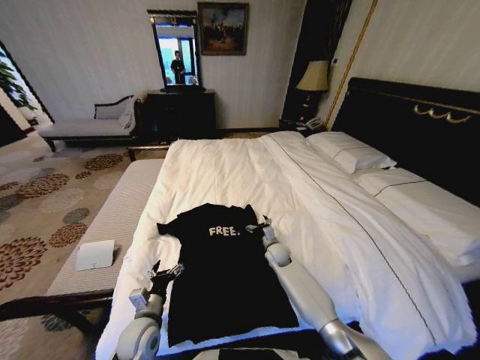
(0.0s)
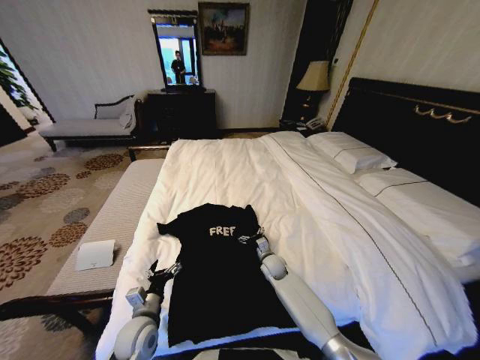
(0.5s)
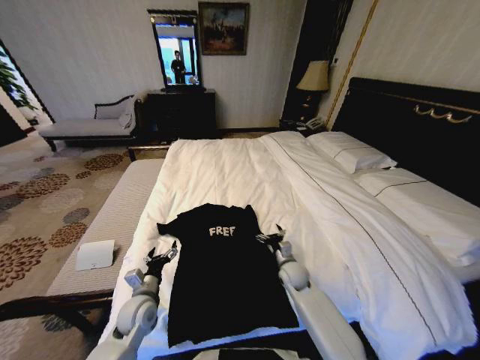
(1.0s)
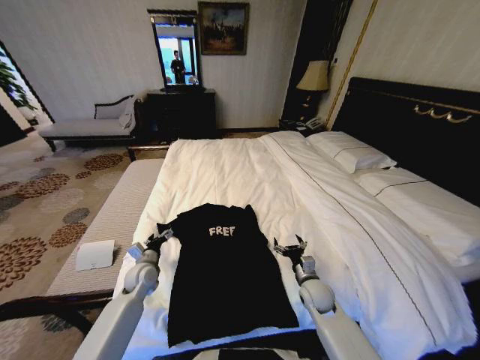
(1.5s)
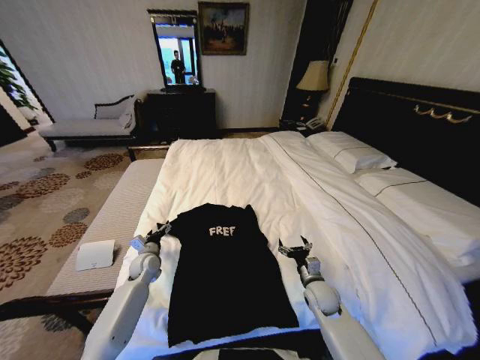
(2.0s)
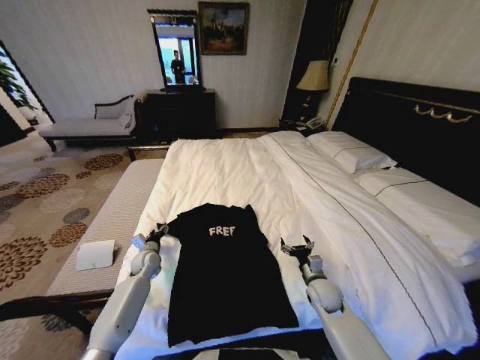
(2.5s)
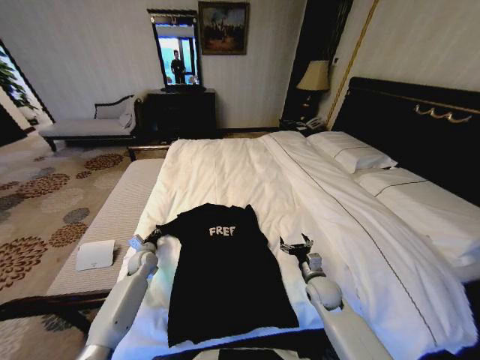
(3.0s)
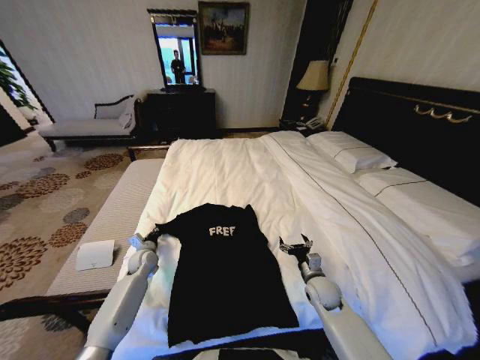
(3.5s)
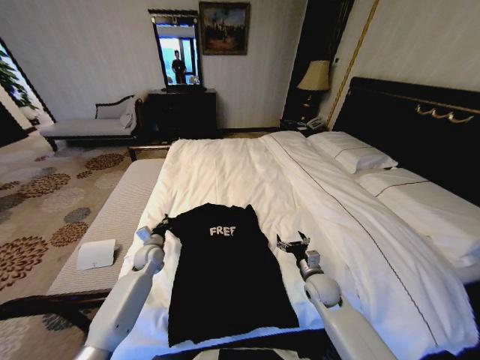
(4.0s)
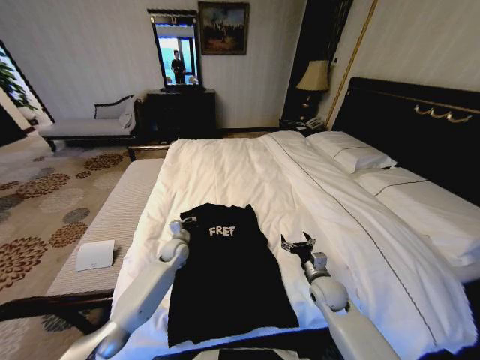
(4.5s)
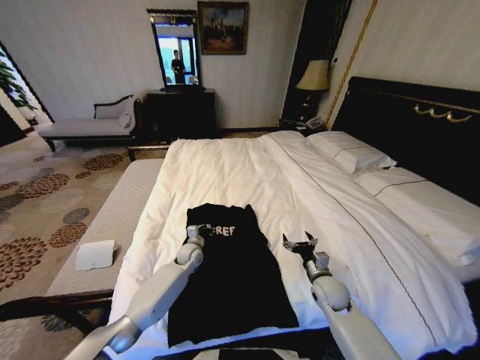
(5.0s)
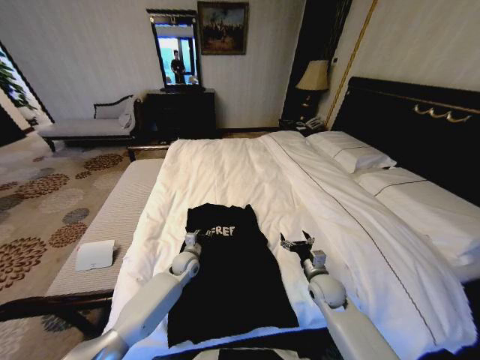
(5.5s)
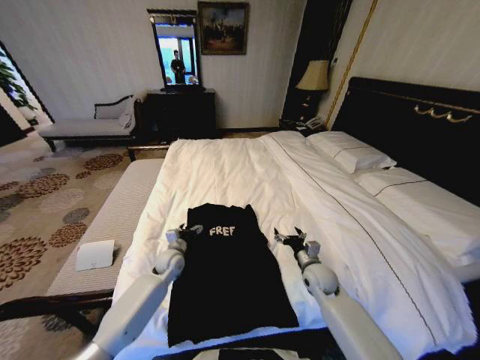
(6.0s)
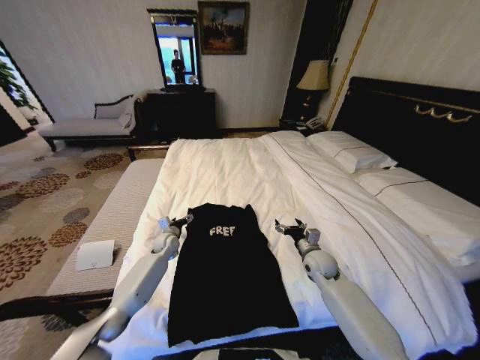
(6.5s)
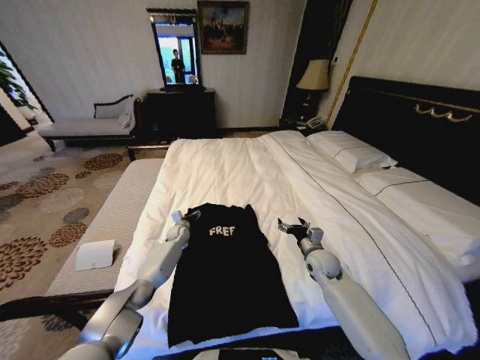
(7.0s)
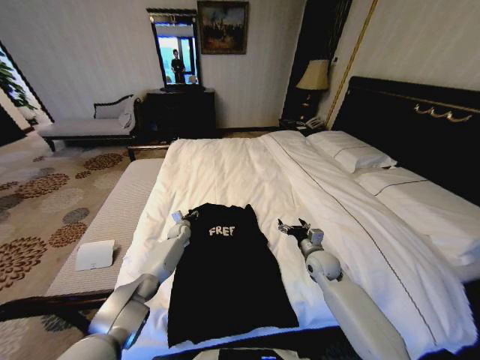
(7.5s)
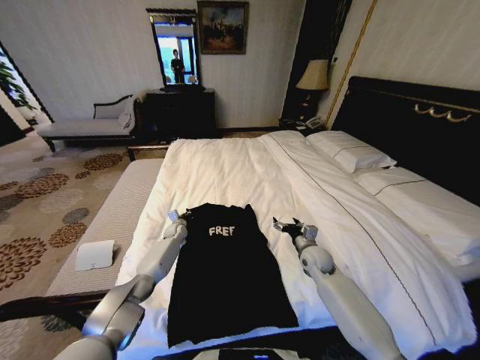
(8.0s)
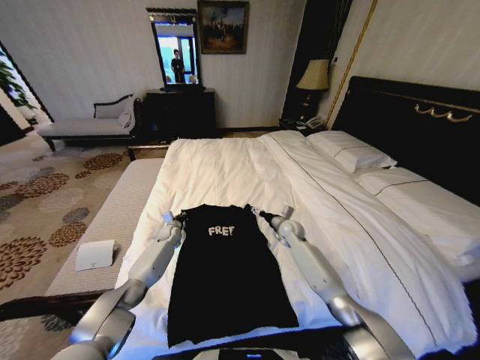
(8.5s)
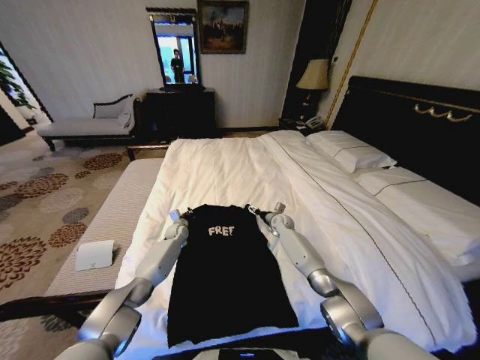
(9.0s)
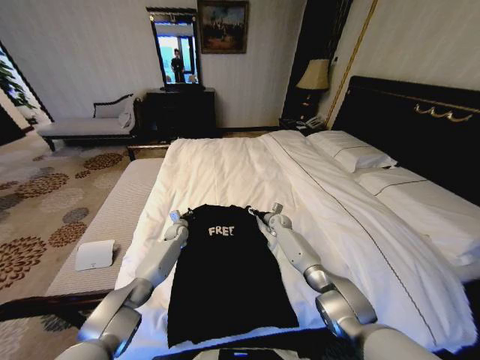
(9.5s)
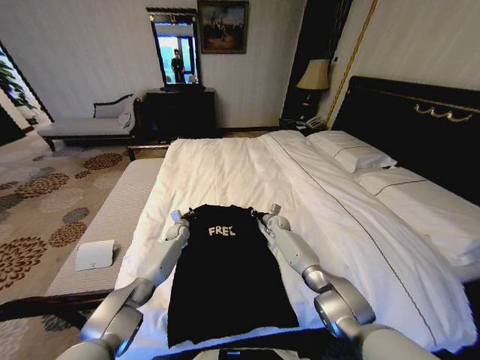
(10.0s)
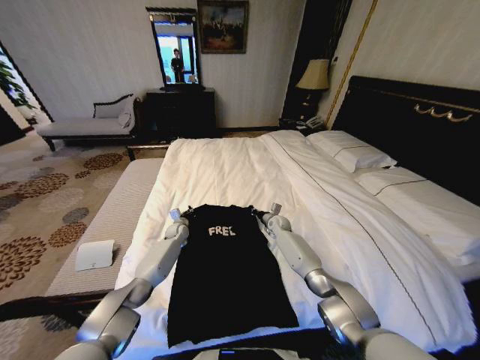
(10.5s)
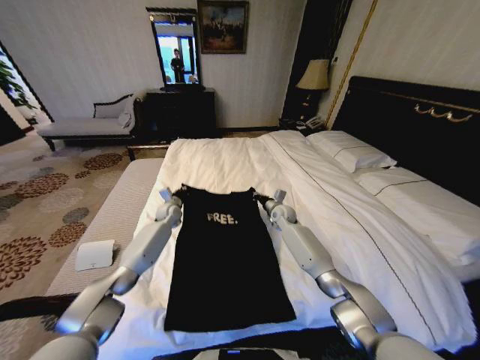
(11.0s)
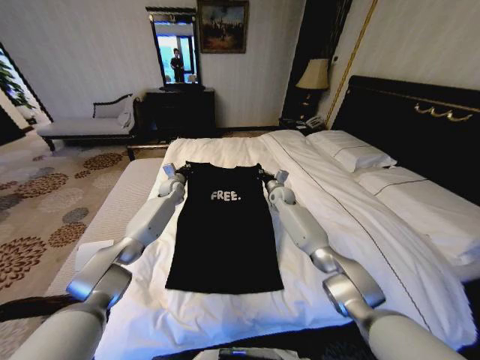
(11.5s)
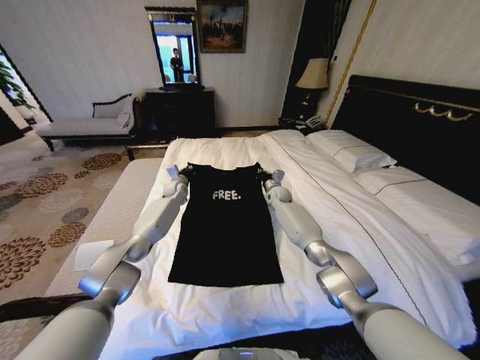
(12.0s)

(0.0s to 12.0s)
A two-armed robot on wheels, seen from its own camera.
Task of the whole recording: Fold the clothes on the bed.
0.0s - 2.0s: The right gripper moves backward and to the right, about 20 cm. Meanwhile the left gripper travels forward by roughly 20 cm.
2.0s - 4.0s: The left gripper closes its fingers.
4.0s - 6.0s: The left gripper shifts approximately 10 cm to the right, and opens up.
6.0s - 8.0s: The left gripper shifts approximately 15 cm forward, and closes. The right gripper shifts approximately 5 cm forward.
8.0s - 10.0s: The right gripper moves forward, approximately 20 cm, and closes its fingers.
10.0s - 12.0s: Both grippers travel together upward and forward, about 15 cm.

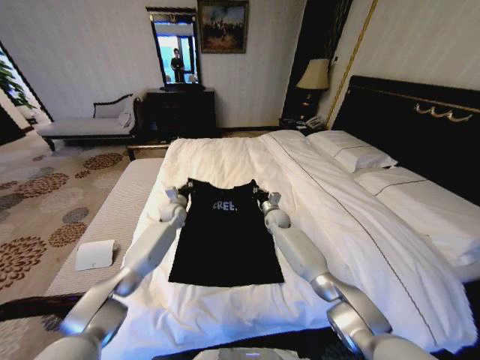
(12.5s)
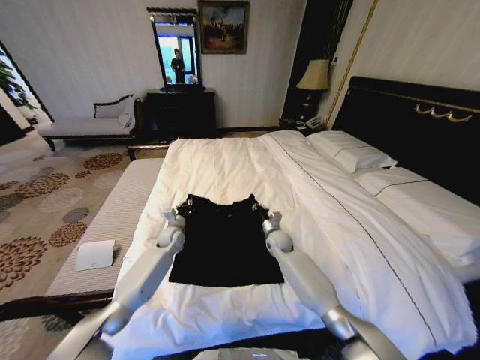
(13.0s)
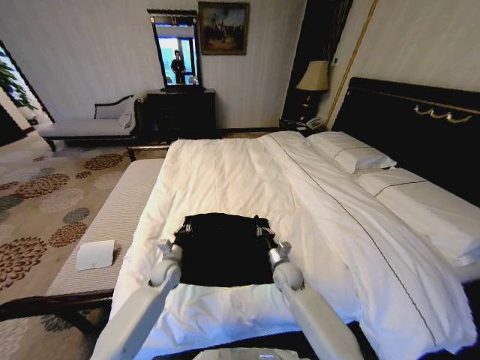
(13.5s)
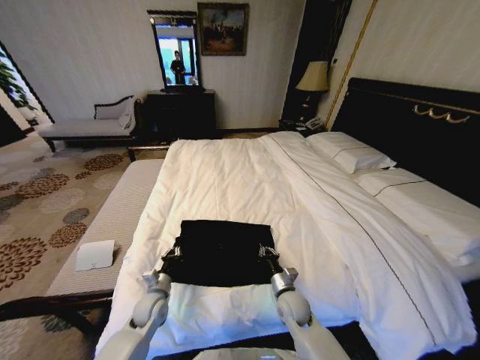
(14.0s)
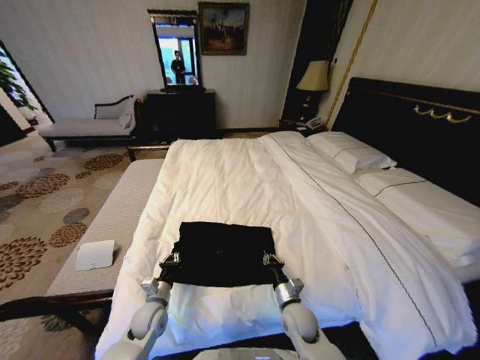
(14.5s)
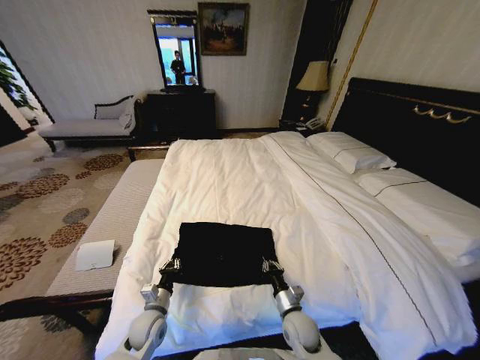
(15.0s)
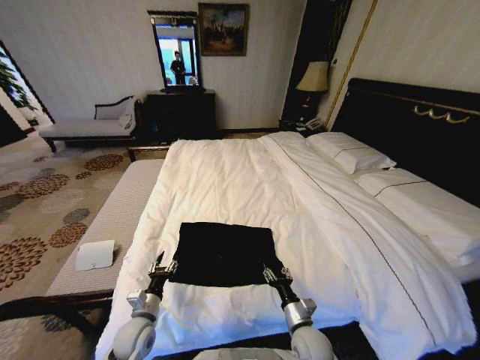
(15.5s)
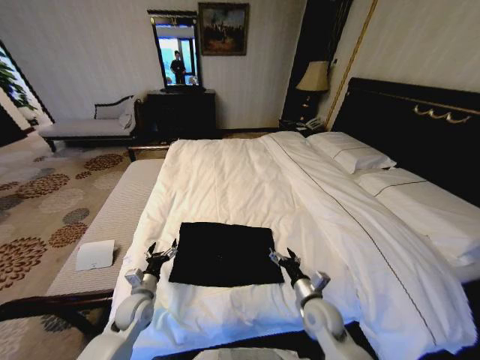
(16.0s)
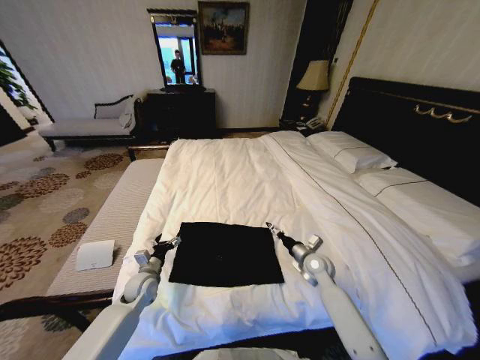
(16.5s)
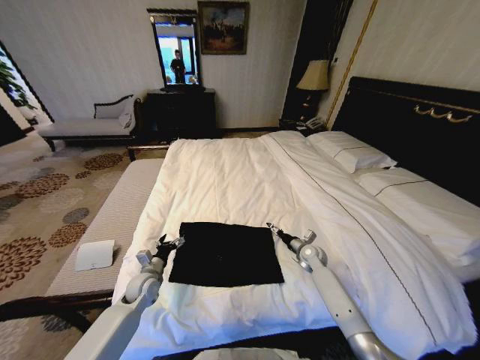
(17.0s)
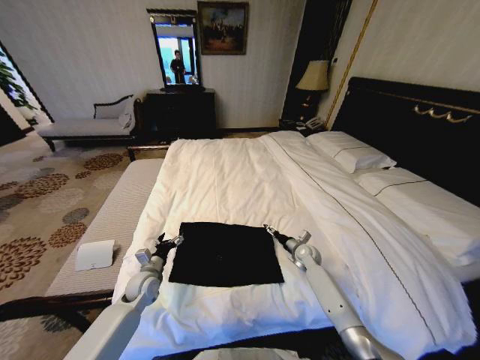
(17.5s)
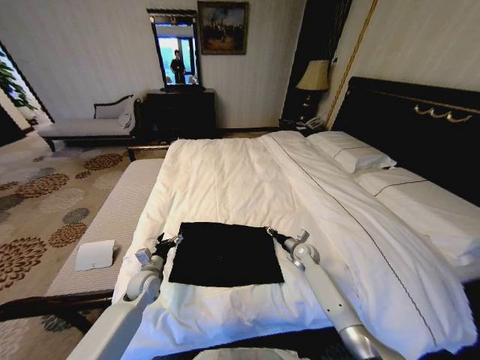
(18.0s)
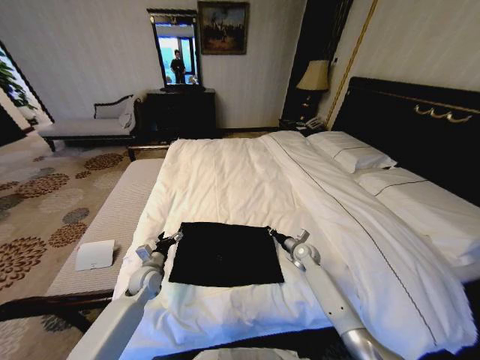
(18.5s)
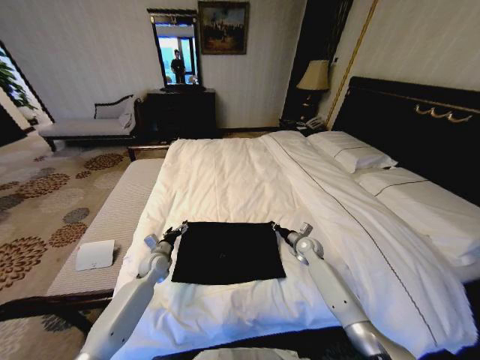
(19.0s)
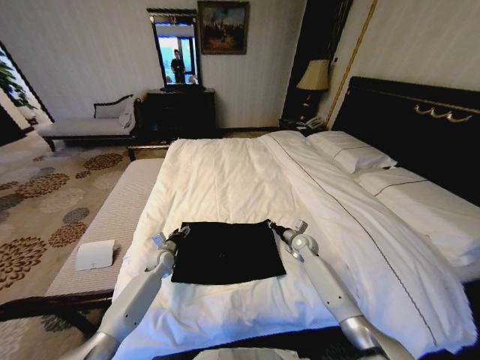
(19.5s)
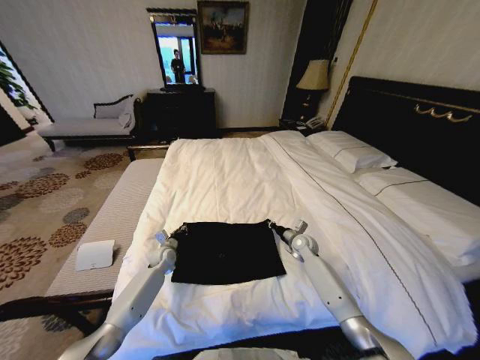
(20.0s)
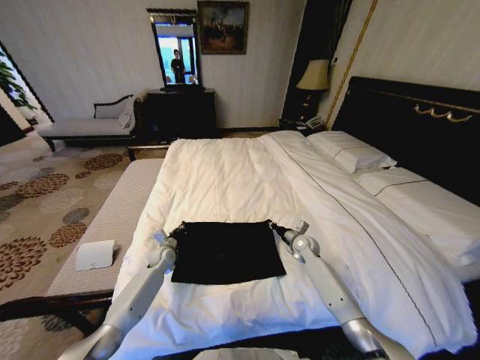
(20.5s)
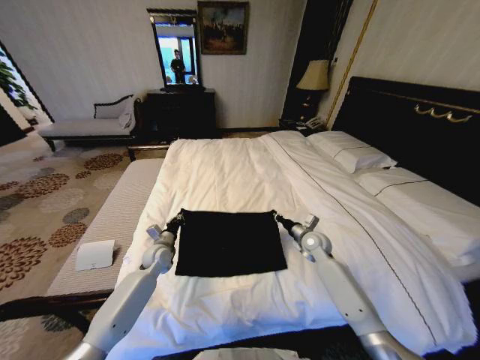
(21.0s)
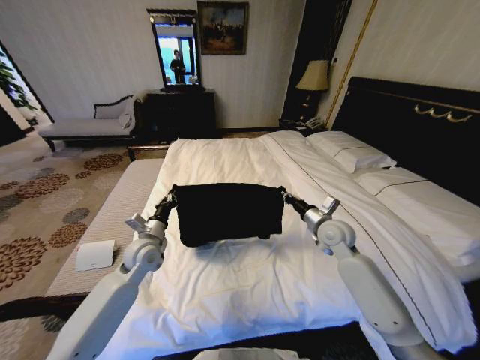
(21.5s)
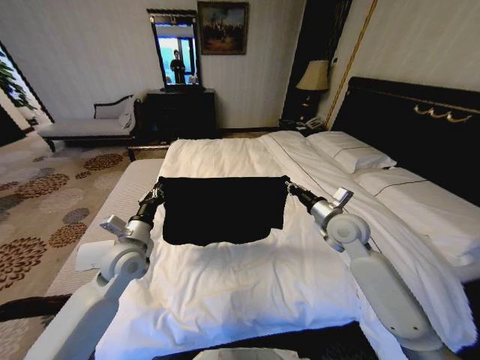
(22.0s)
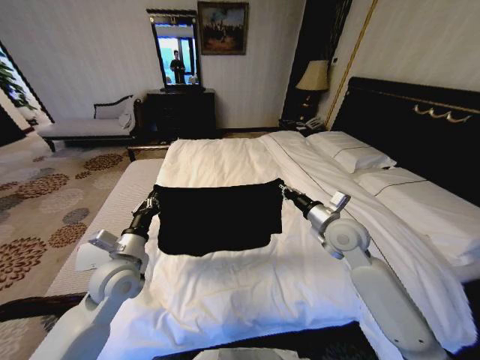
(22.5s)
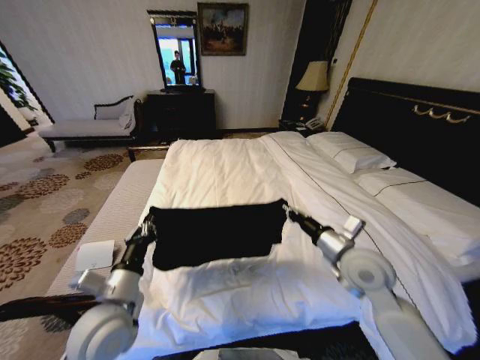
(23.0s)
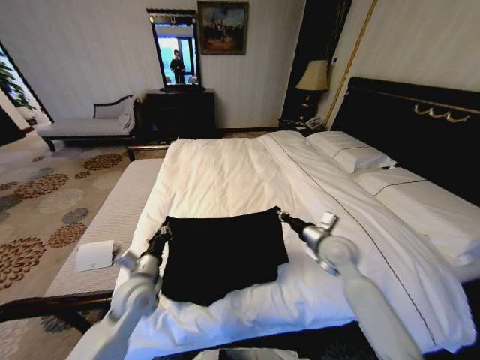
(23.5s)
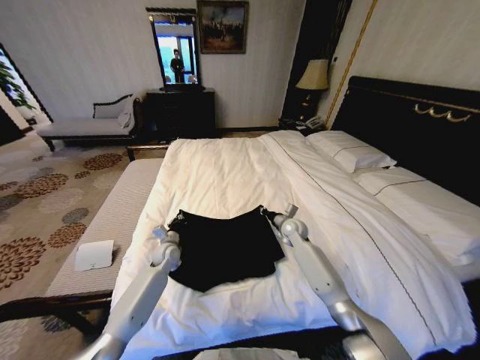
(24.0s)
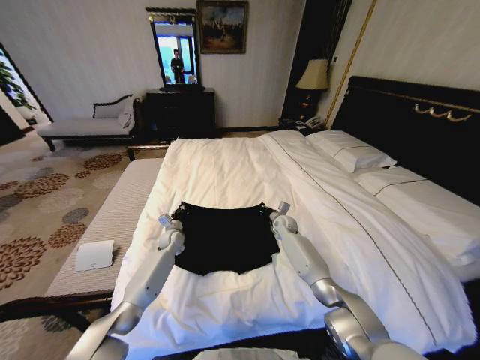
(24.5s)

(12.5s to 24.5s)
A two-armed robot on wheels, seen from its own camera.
Task of the whole recording: Fold the clothes on the bed.
12.5s - 14.5s: Both grippers move backward, some 30 cm.
14.5s - 16.5s: The right gripper is displaced forward, to the right and upward by roughly 20 cm, and opens its fingers, while the left gripper goes roughly 10 cm forward, and opens up.
16.5s - 18.5s: The right gripper moves forward and downward, some 10 cm, and closes up.
18.5s - 20.5s: The left gripper heads forward, covering about 10 cm, and closes its fingers.
20.5s - 22.5s: The two grippers go roughly 25 cm upward and backward.
22.5s - 24.5s: The left gripper shifts approximately 30 cm forward and downward. The right gripper travels downward and forward by approximately 25 cm.

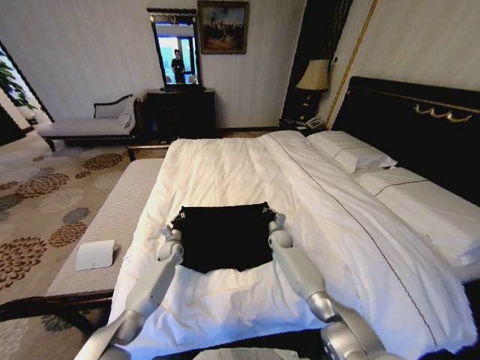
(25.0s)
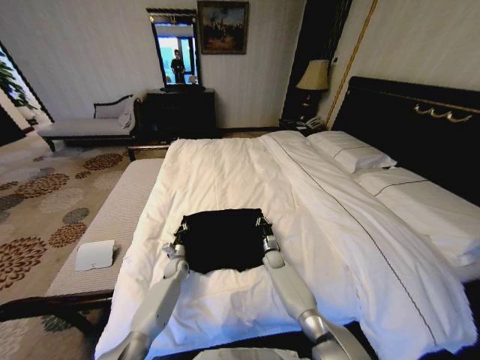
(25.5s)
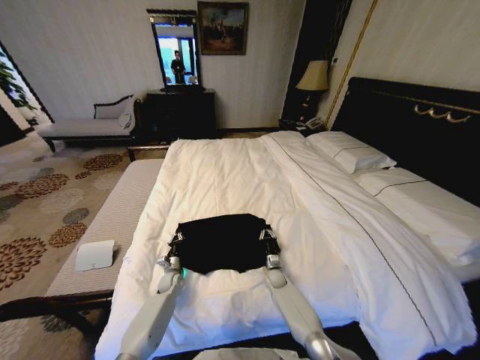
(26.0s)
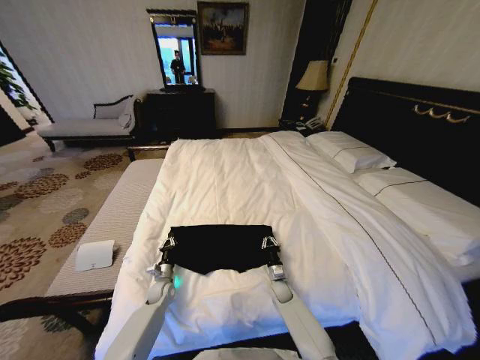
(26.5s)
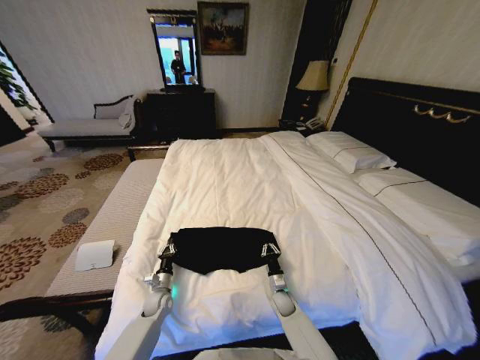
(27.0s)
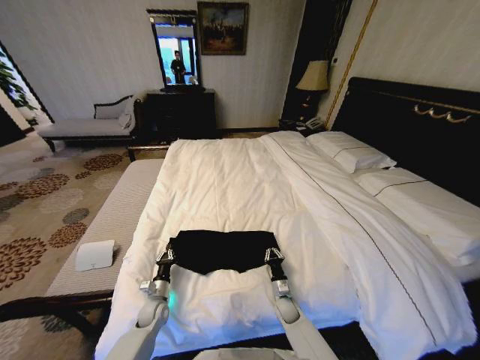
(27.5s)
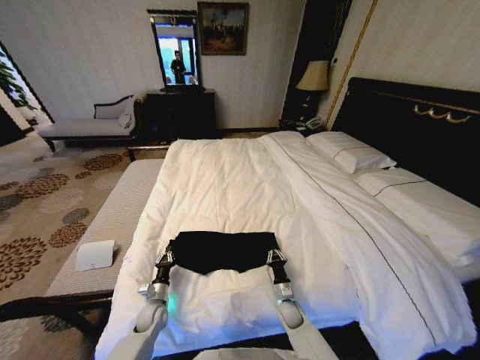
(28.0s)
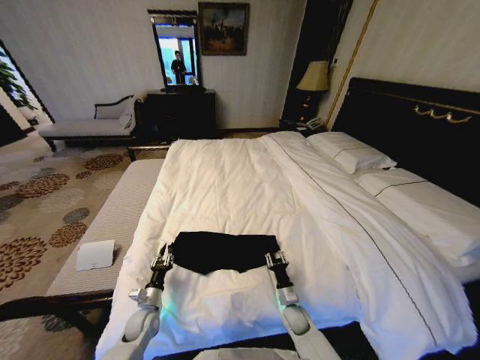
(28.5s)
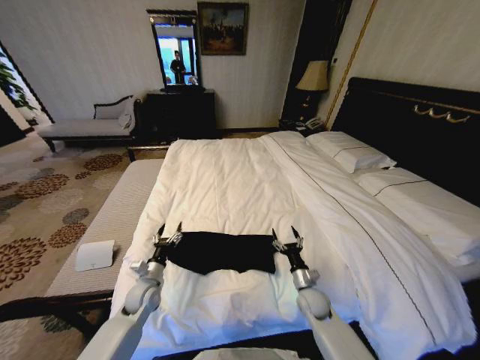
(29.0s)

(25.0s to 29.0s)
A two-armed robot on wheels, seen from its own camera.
Task of the whole recording: Fold the clothes on the bed.
25.0s - 27.0s: The right gripper shifts some 25 cm backward and downward. The left gripper is displaced backward by some 20 cm.
27.0s - 29.0s: The left gripper heads upward, covering about 10 cm, and opens. Meanwhile the right gripper moves upward and to the right, approximately 15 cm, and opens up.
